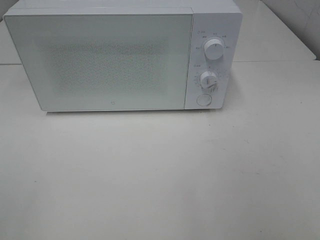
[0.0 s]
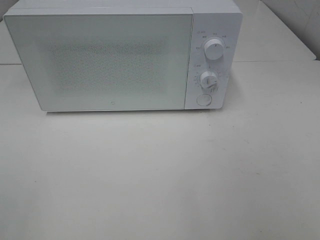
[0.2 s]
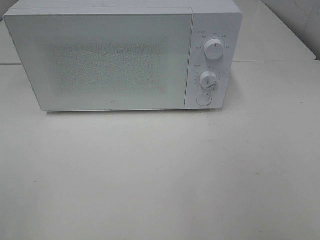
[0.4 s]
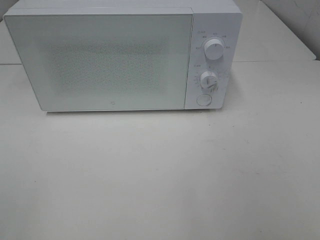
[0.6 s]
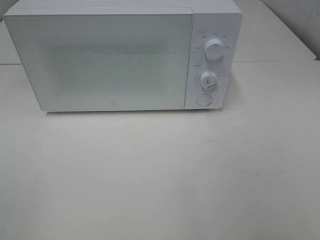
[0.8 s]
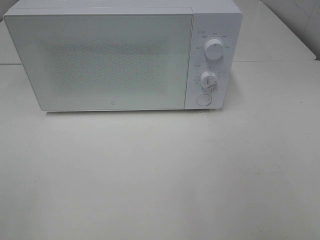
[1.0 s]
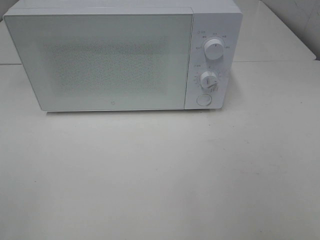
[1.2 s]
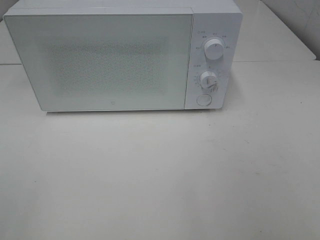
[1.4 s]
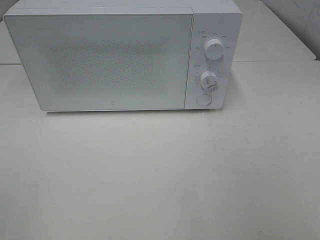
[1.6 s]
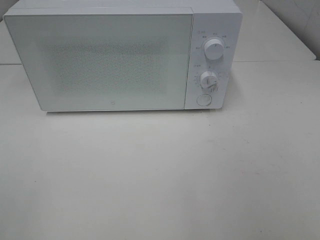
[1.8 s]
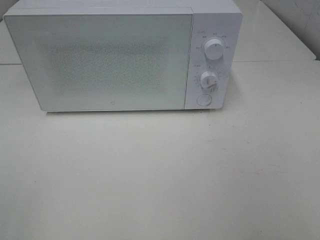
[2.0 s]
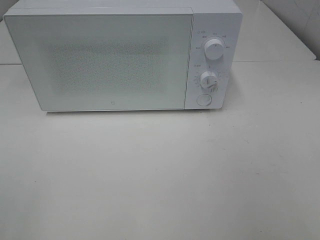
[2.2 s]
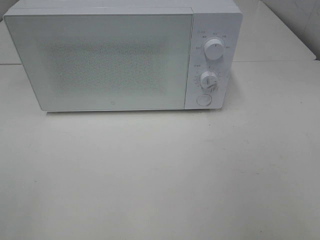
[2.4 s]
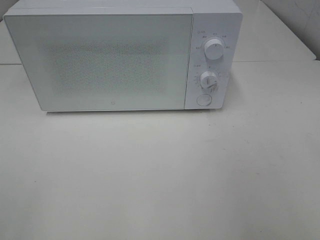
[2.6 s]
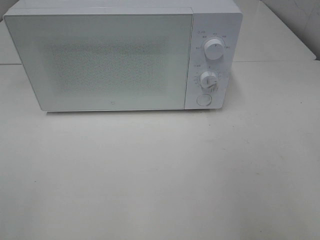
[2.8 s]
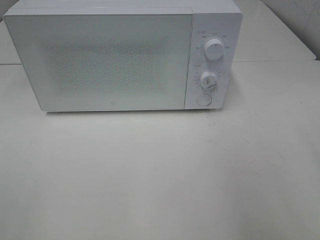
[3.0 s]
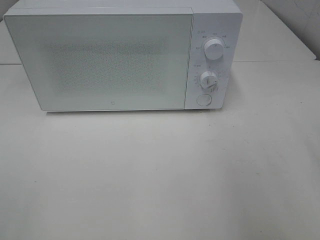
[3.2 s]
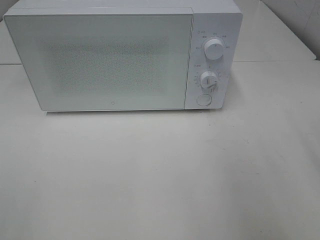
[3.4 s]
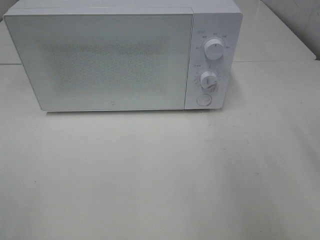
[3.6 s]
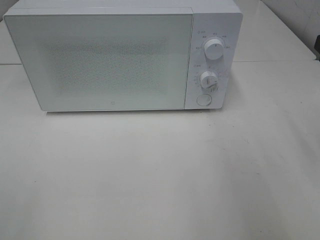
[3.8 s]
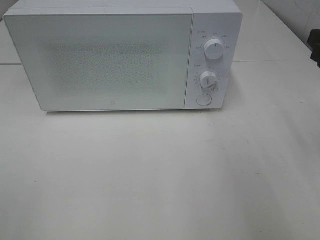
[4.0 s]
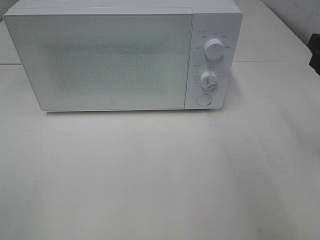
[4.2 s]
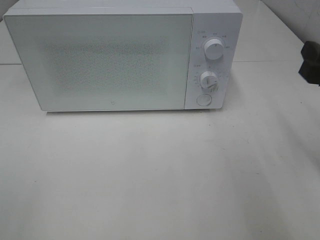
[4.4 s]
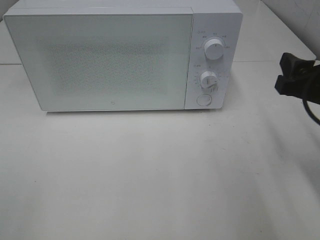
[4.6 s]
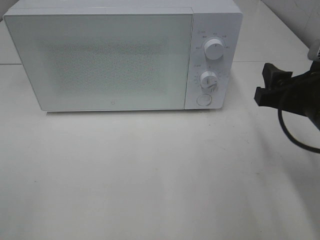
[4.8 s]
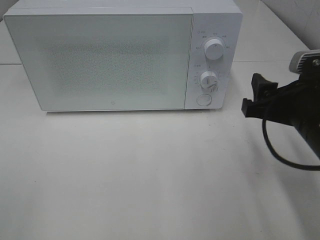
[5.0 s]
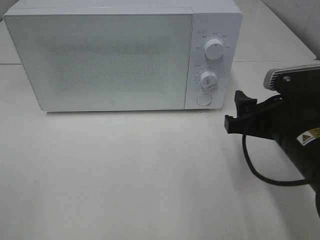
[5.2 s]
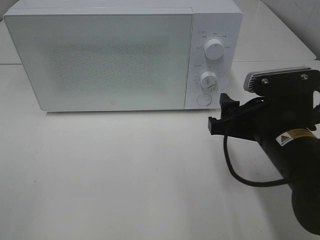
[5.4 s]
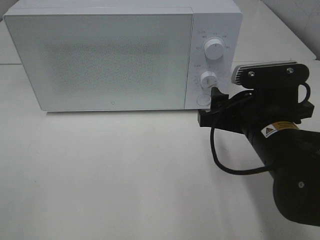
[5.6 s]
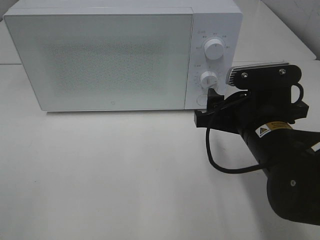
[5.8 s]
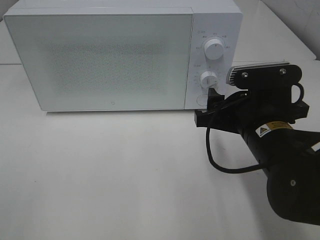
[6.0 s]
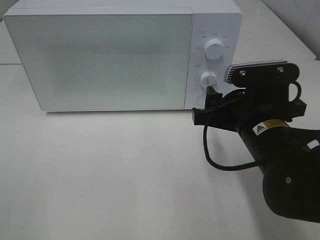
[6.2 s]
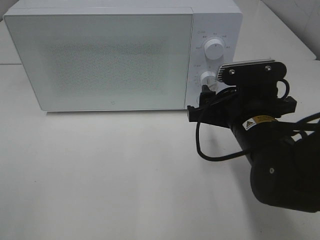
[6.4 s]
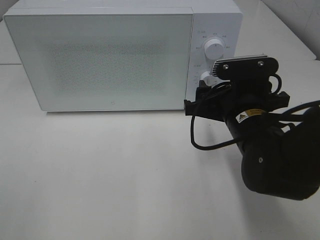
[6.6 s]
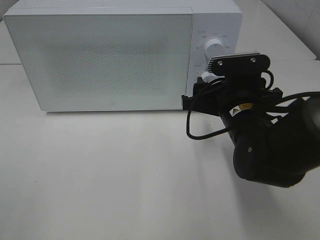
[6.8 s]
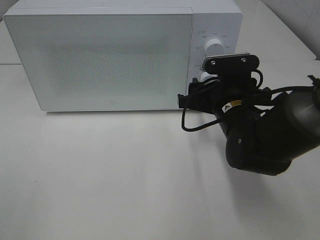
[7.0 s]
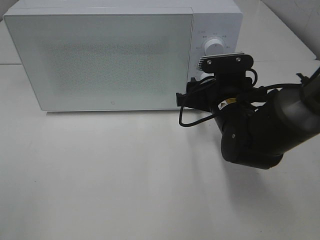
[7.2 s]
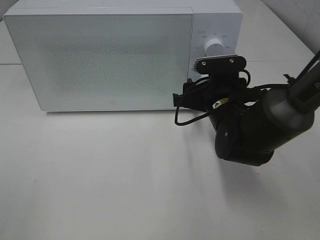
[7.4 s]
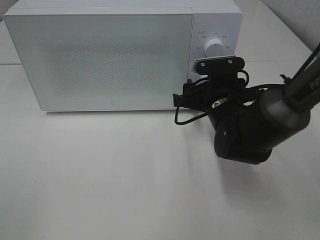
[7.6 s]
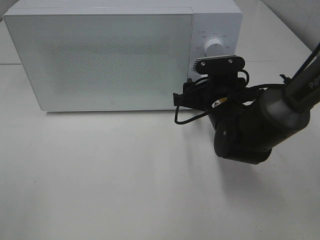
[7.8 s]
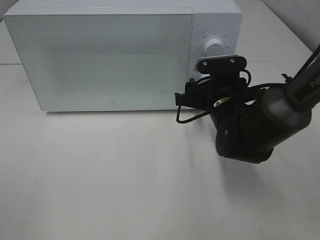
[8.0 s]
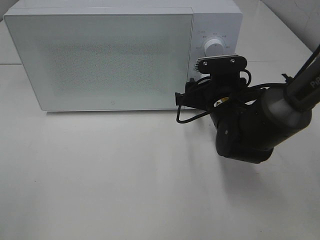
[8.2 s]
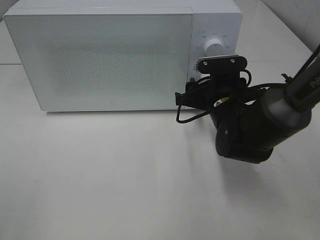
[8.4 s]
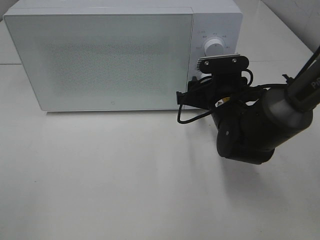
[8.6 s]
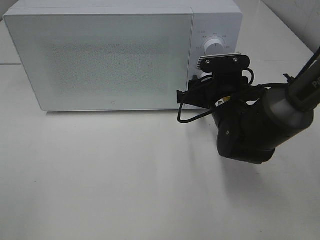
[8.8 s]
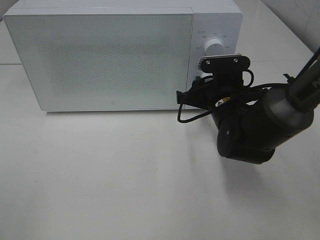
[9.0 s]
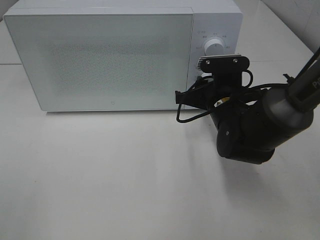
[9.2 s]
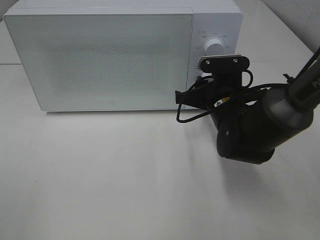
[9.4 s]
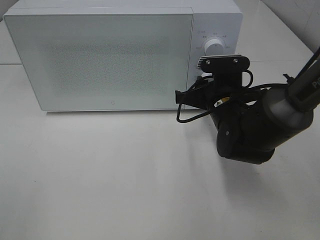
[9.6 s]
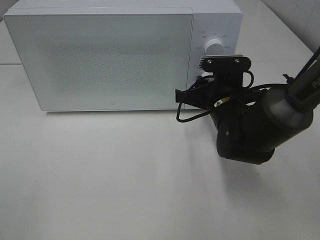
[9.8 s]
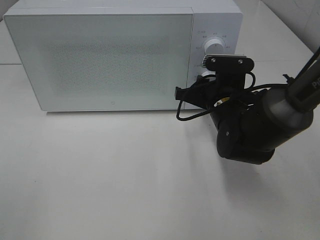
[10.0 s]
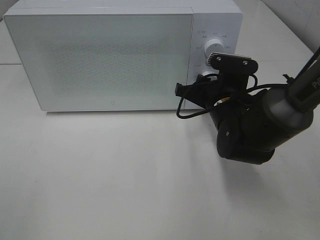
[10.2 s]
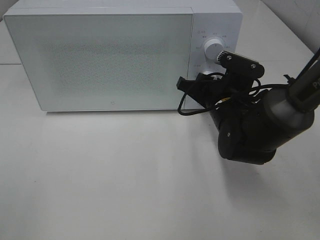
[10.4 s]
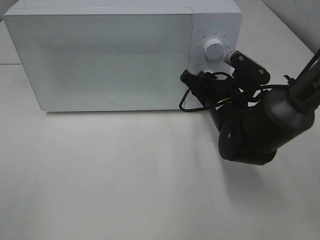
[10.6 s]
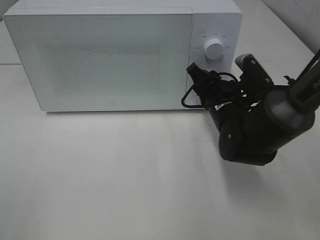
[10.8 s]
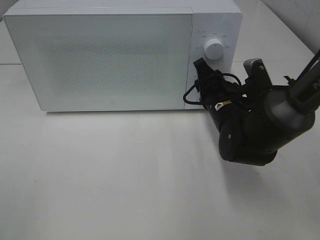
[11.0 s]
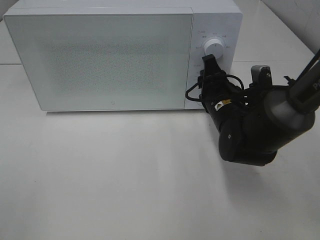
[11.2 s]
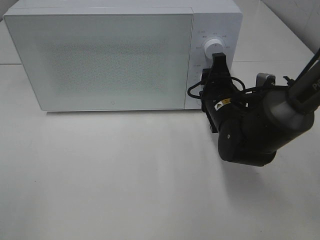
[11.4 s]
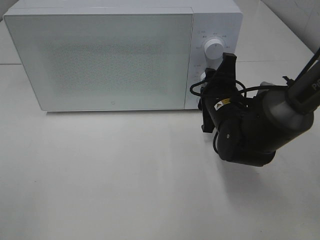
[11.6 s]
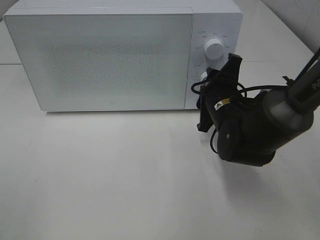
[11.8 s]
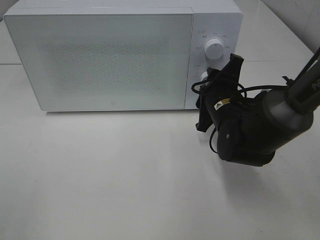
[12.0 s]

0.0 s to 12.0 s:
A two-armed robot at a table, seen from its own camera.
Task of the whole recording: Heat Sandwich.
0.0 to 1.6 s: The two grippers keep their place.
3.0 to 4.4 s: The right gripper goes some 10 cm forward and downward.
4.4 to 6.0 s: The right gripper is displaced to the left and downward by roughly 15 cm.
6.0 to 7.6 s: The right gripper heads forward, covering some 10 cm.
7.6 to 9.0 s: Both grippers stay about where they are.

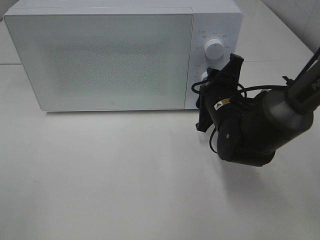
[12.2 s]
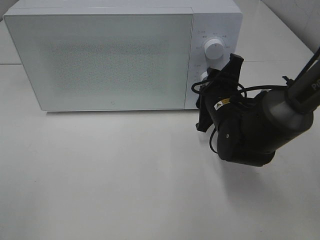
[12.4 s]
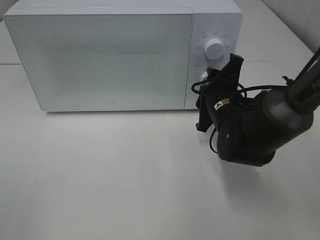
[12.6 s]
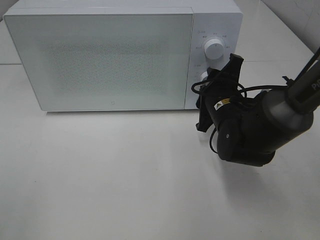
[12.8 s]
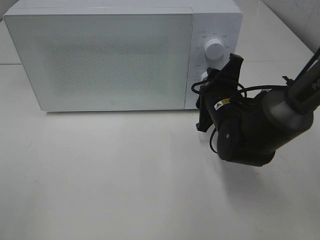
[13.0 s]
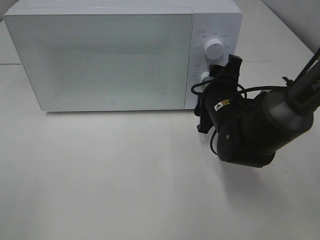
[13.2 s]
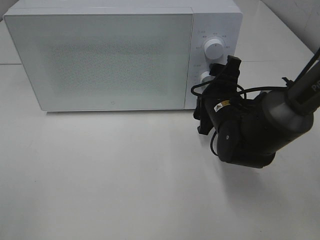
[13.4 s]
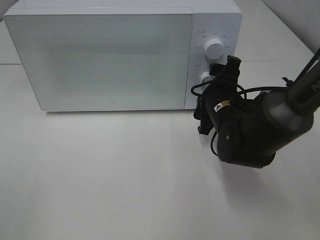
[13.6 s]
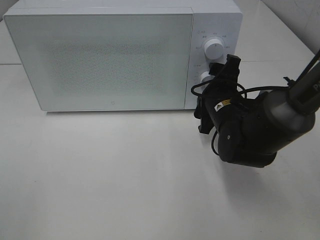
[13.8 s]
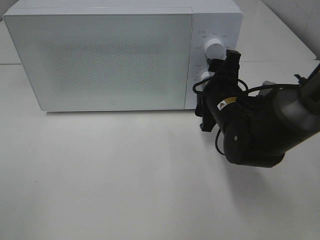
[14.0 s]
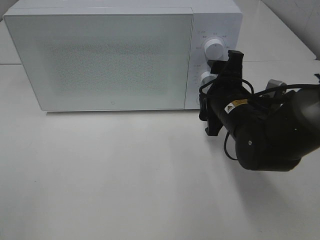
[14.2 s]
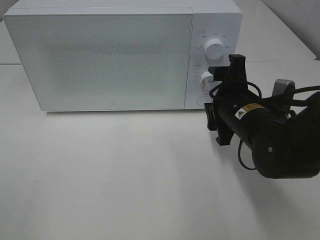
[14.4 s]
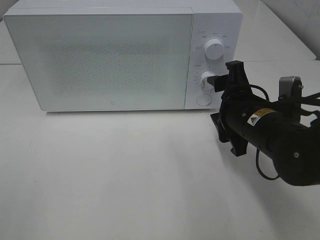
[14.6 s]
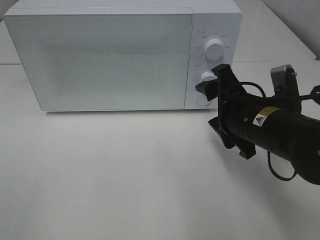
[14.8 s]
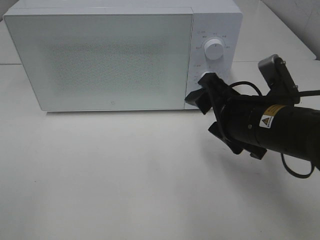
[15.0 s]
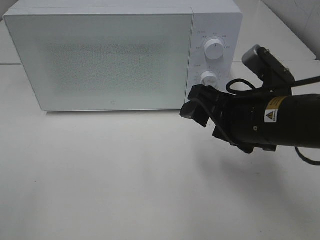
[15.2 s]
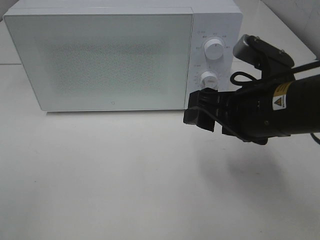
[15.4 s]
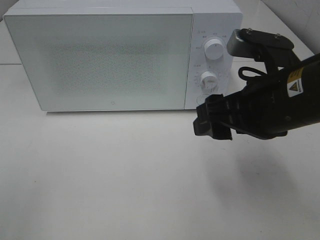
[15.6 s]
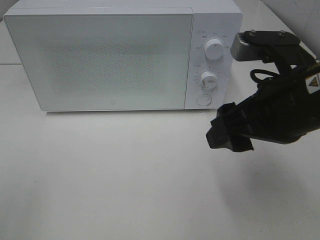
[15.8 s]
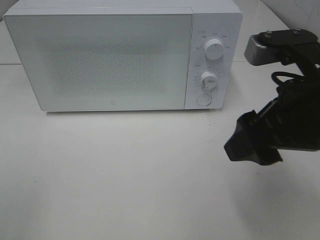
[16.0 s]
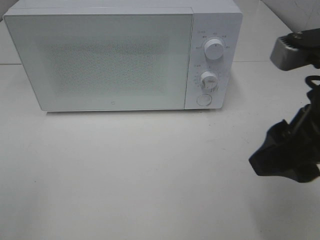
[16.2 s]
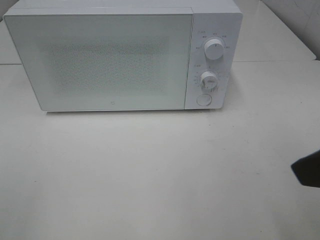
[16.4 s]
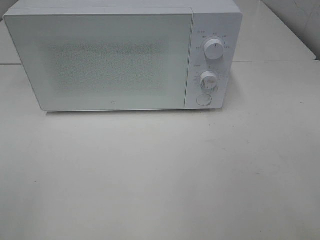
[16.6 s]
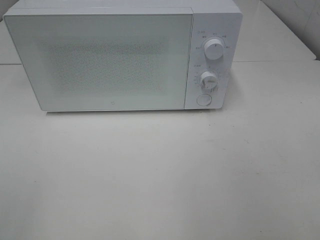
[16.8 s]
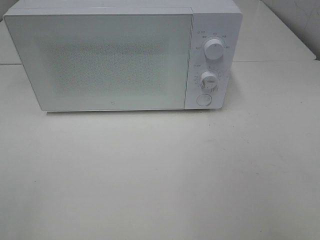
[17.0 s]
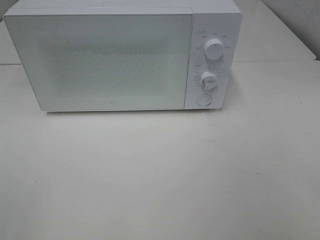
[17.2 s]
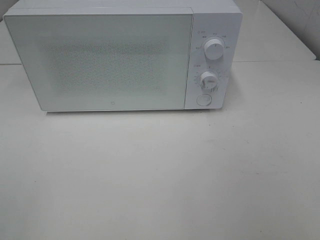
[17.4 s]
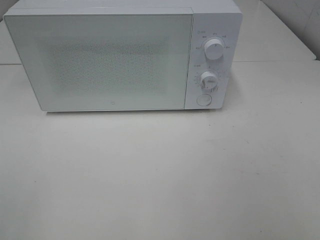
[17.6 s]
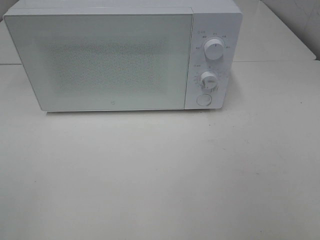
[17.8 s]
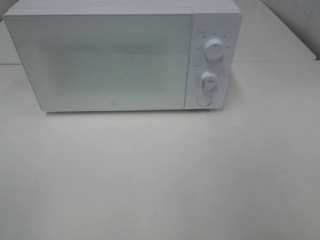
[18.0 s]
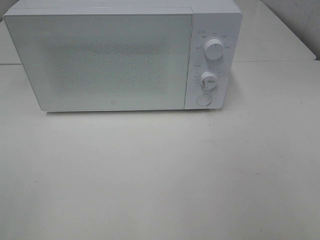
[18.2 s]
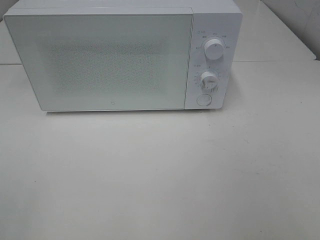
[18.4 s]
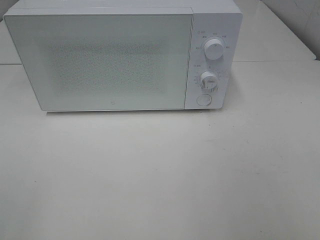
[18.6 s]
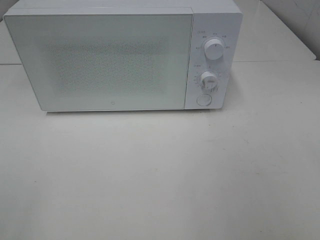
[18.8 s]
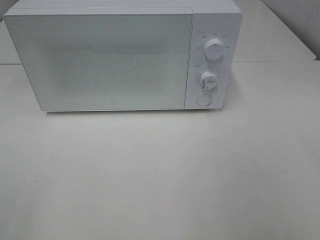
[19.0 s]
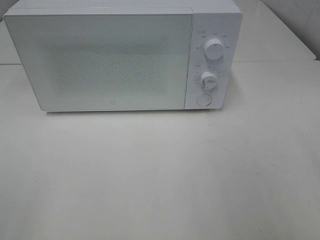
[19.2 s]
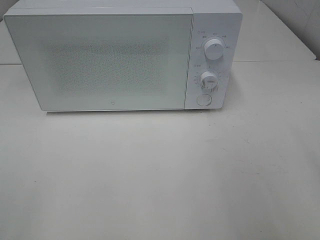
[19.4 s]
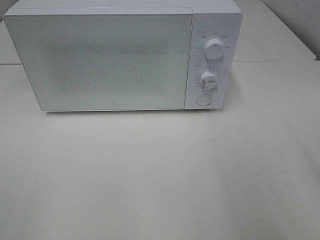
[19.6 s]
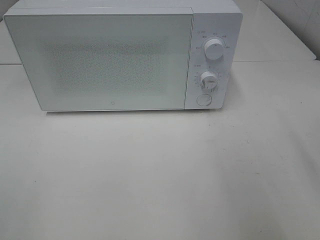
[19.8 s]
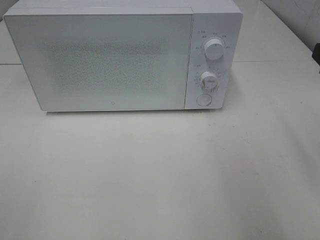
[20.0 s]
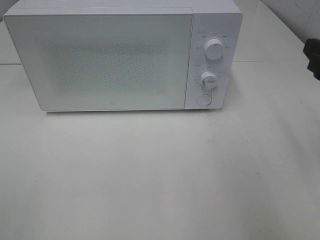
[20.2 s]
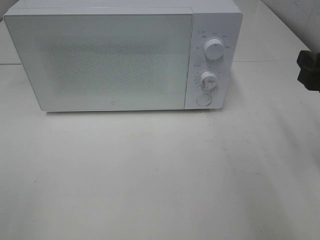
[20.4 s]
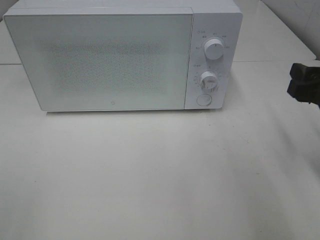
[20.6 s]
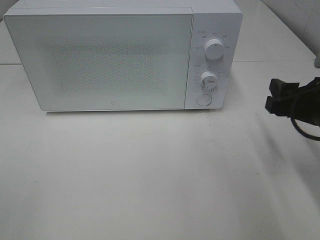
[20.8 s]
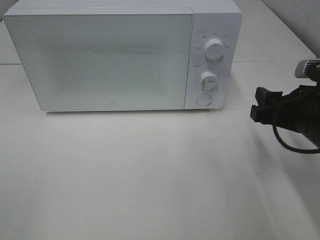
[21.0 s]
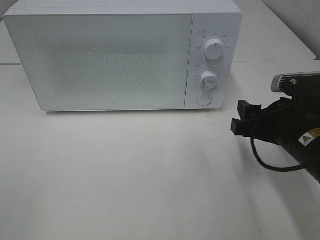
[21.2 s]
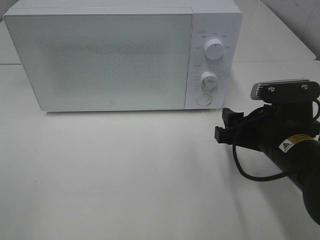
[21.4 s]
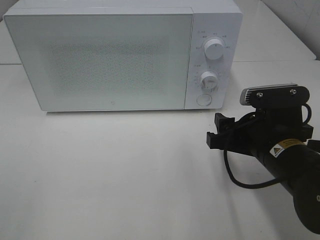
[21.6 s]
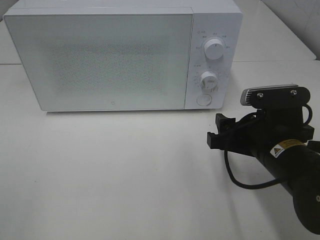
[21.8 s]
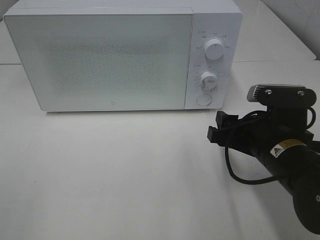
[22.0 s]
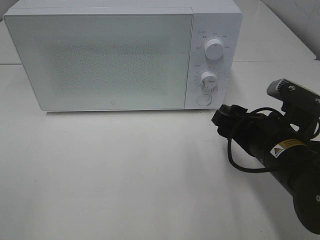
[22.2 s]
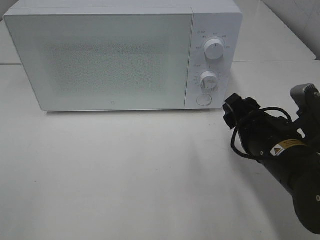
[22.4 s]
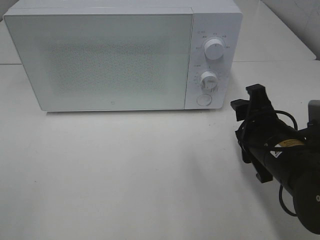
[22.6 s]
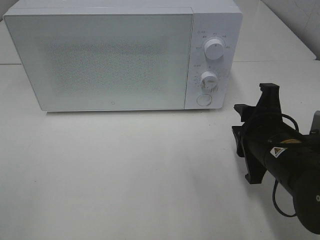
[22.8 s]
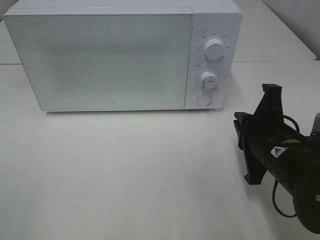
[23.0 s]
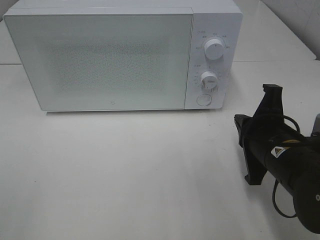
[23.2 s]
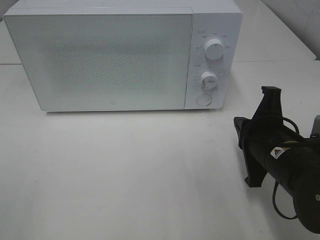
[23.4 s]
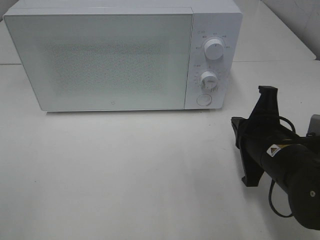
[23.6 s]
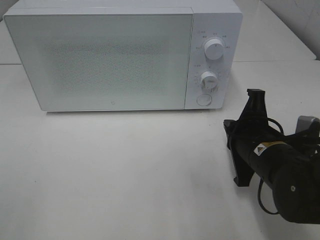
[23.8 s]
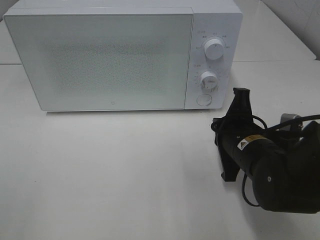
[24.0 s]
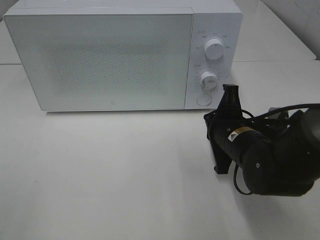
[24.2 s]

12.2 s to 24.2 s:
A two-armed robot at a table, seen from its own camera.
Task of the whole recording: Heat Sandwich.
Step, 12.2 to 14.2 s: Right hand: twist timer button.
12.2 to 13.8 s: The right gripper opens its fingers.
13.8 to 15.2 s: The right gripper shifts roughly 15 cm backward and upward.
15.2 to 16.6 s: The right gripper goes approximately 20 cm backward, upward and to the right.
19.8 to 21.2 s: The right gripper is displaced downward and to the left by approximately 15 cm.
22.6 to 24.2 s: The right gripper is displaced forward by about 5 cm, and closes.
